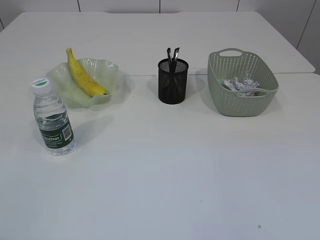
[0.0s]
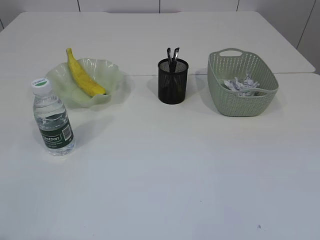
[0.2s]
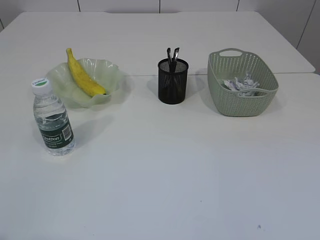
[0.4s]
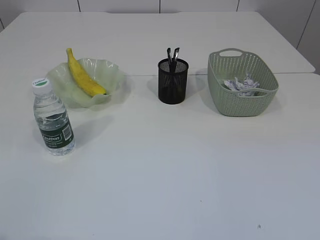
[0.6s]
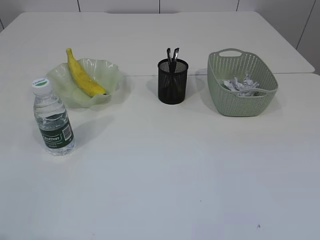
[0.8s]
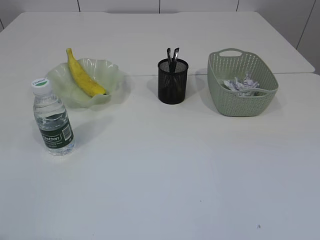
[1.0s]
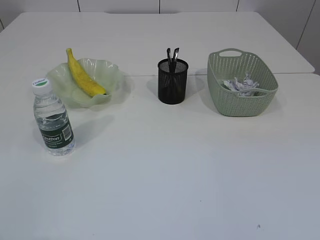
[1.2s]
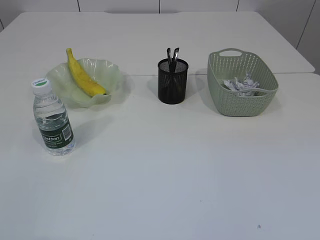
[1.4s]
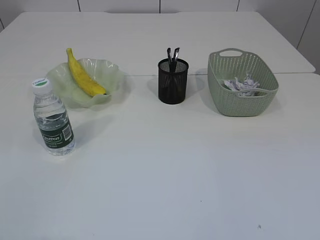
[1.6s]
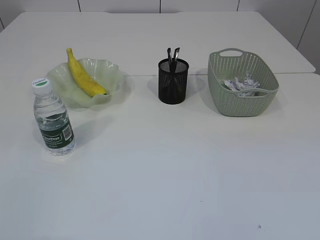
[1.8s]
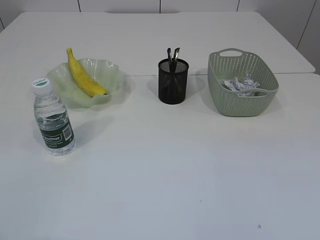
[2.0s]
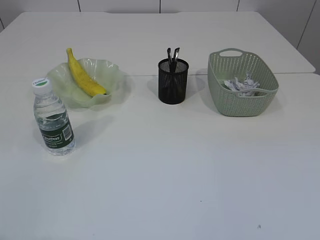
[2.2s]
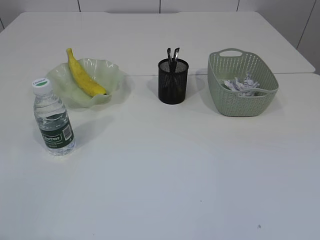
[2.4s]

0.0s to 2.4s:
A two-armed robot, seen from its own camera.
1.2s to 2.4s: Neither gripper changes place.

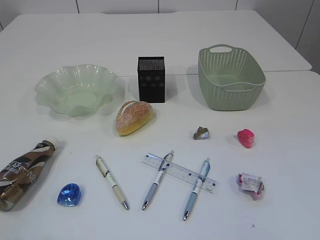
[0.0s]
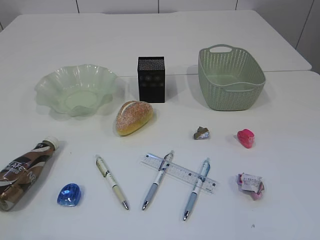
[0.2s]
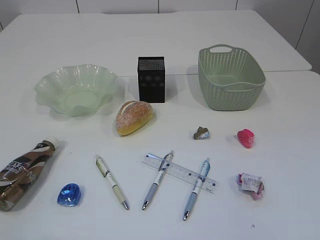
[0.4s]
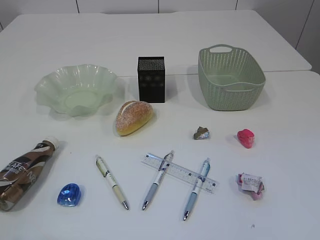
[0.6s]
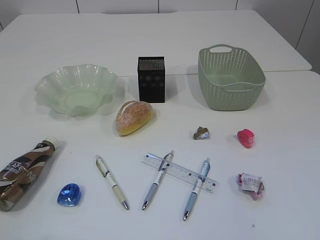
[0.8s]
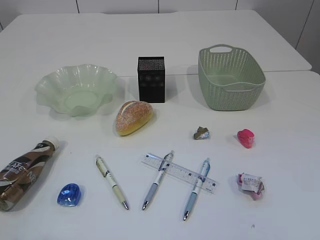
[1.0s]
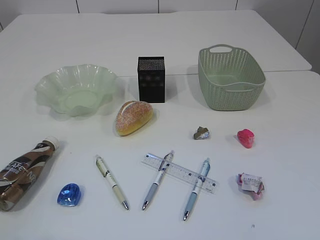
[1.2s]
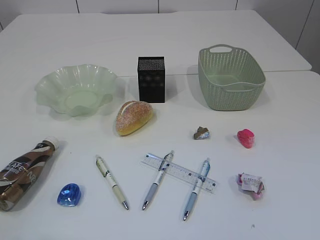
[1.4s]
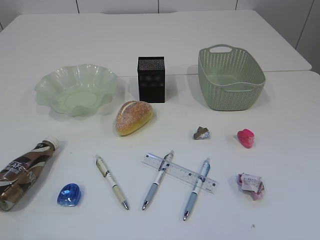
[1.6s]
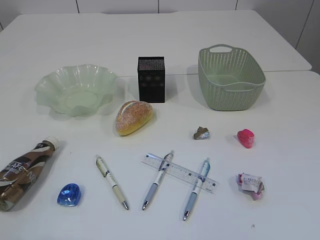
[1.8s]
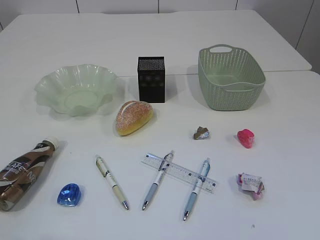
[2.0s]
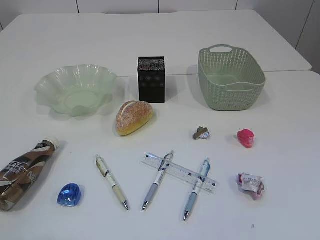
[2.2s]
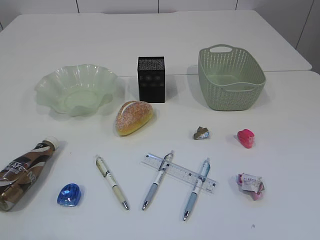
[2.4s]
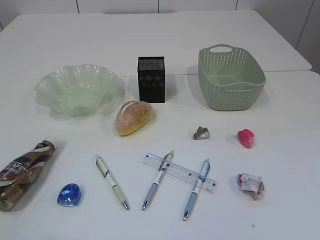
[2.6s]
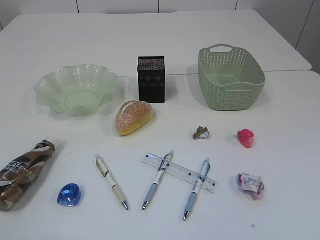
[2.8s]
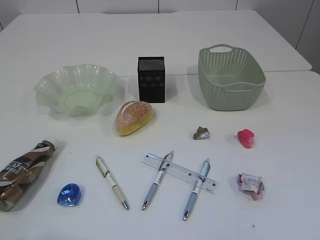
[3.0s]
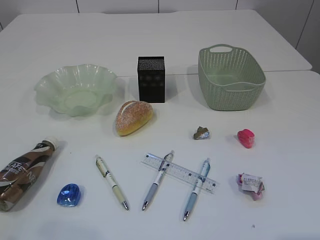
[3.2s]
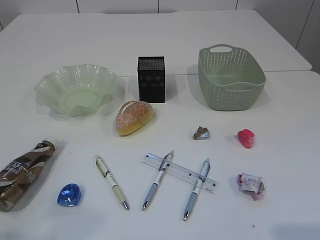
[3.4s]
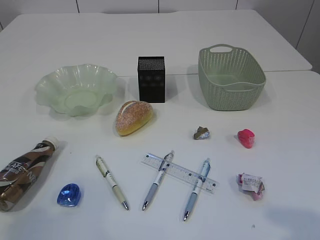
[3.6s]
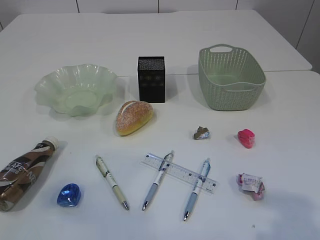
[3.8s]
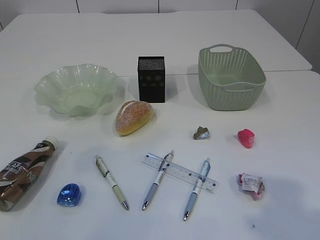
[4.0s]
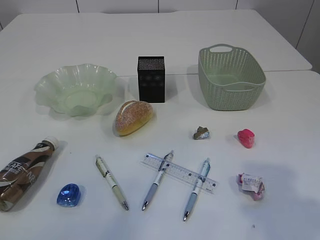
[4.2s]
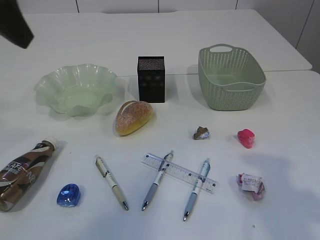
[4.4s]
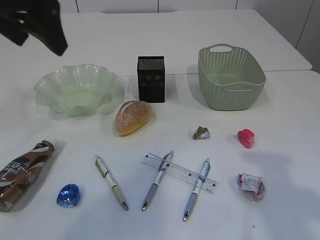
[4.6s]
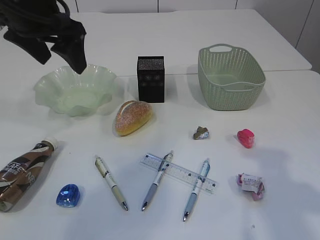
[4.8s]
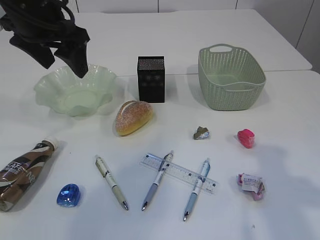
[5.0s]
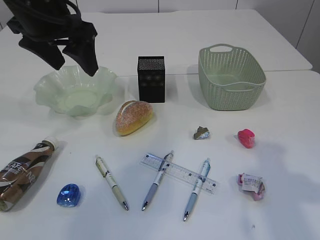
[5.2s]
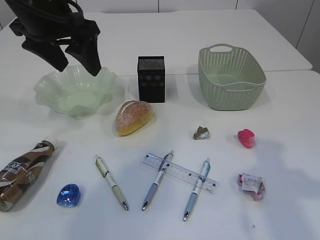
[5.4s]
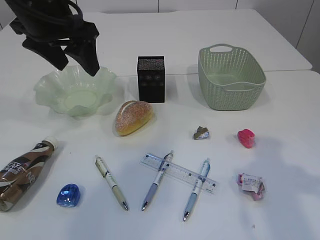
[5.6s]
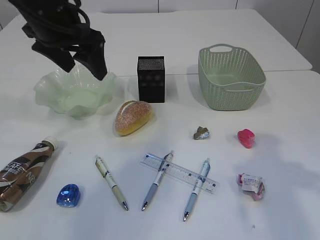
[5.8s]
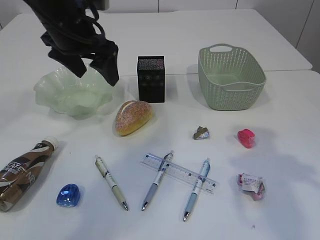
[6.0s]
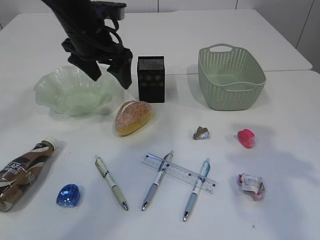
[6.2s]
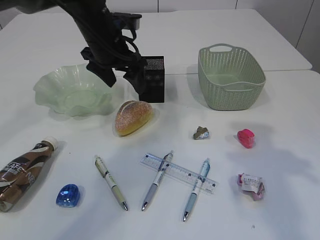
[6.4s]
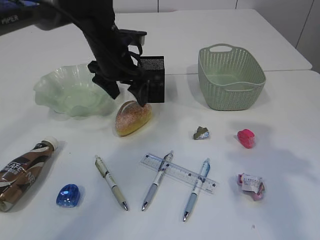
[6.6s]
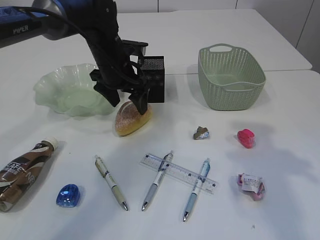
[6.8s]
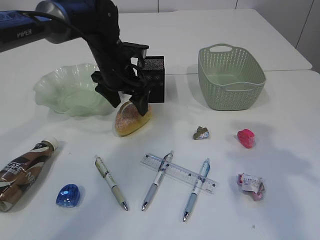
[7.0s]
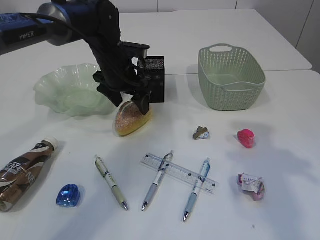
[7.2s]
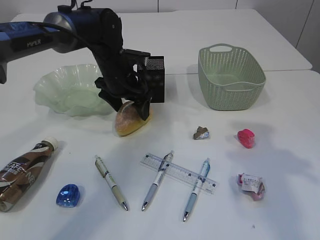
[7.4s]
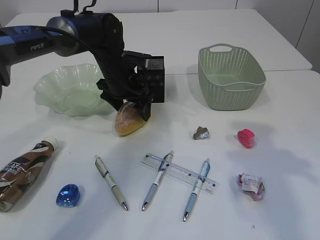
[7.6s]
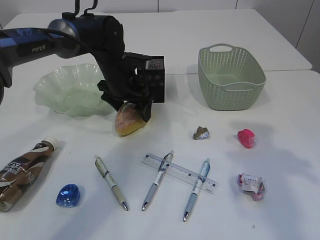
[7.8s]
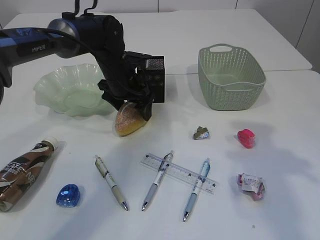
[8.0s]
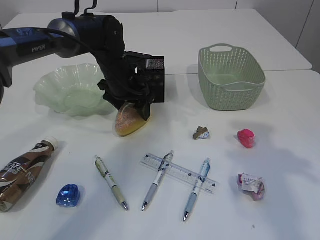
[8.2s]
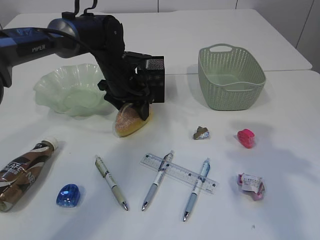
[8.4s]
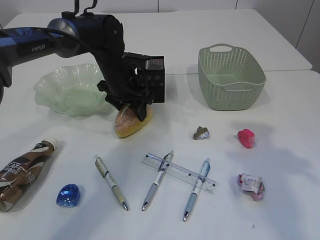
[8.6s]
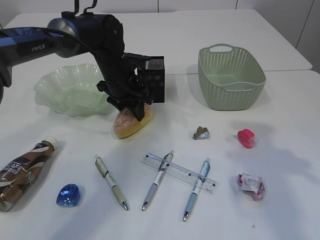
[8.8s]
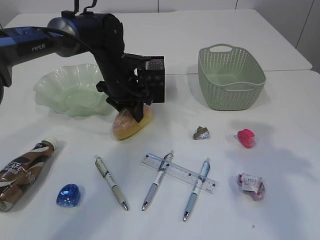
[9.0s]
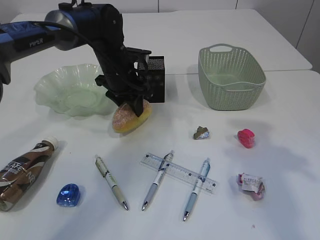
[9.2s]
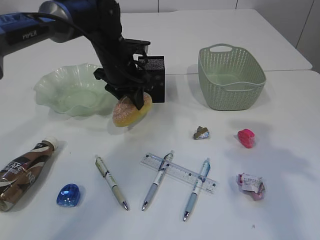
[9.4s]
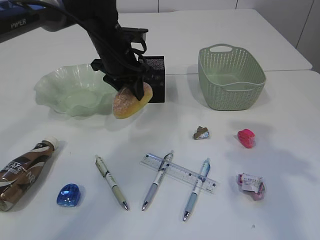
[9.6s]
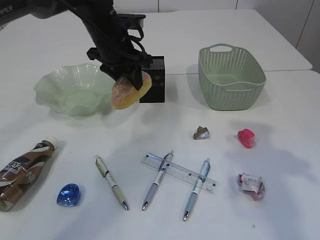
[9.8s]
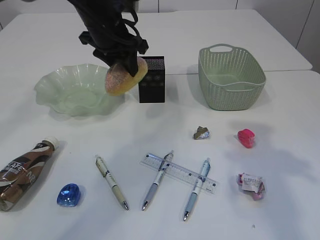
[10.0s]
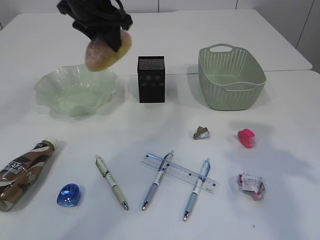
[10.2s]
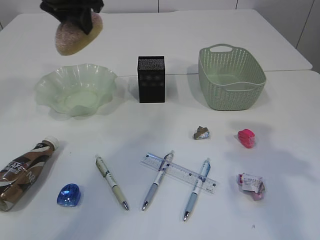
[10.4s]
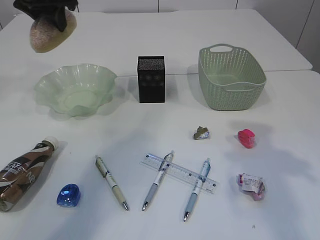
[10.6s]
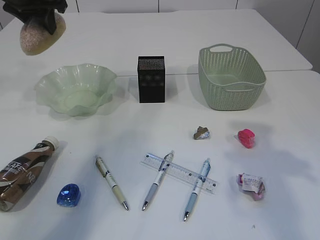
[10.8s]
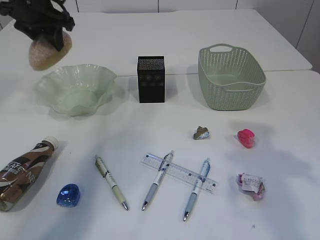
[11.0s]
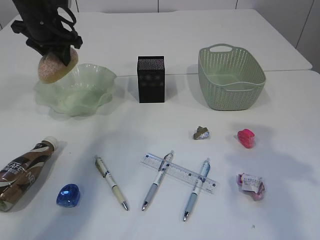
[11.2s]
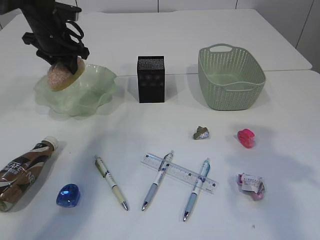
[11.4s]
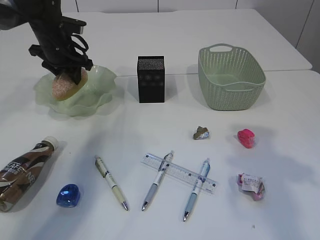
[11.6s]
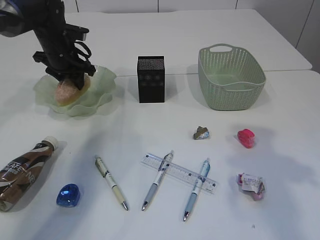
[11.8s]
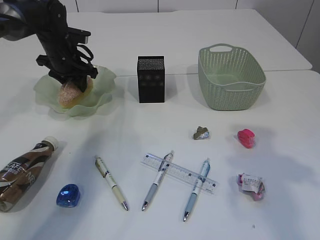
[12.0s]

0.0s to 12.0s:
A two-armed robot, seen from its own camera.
3.0s to 4.4s: The left gripper travels forward and upward by about 30 cm, while the right gripper is displaced forward and upward by approximately 15 cm.
4.4s to 6.0s: The right gripper is displaced forward by some 10 cm. Meanwhile the left gripper goes approximately 20 cm forward, downward and to the right.
6.0s to 7.6s: The left gripper goes some 15 cm downward and forward.
7.6s to 9.0s: The left gripper closes.
9.0s to 10.4s: The left gripper shifts approximately 20 cm upward.
10.4s to 12.0s: The left gripper moves downward and forward, about 20 cm.

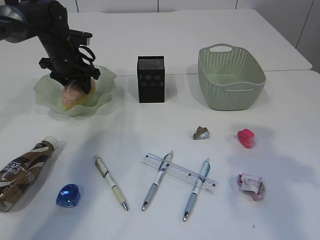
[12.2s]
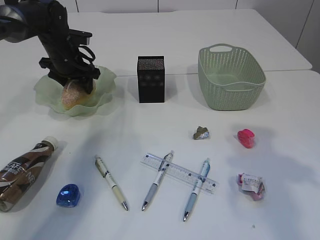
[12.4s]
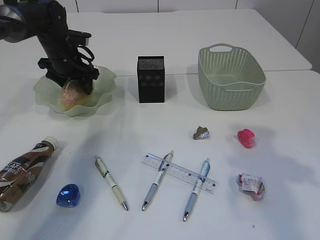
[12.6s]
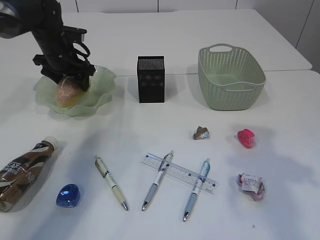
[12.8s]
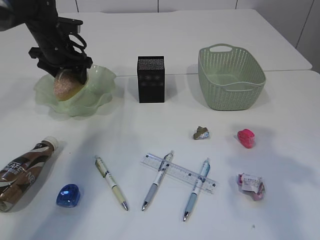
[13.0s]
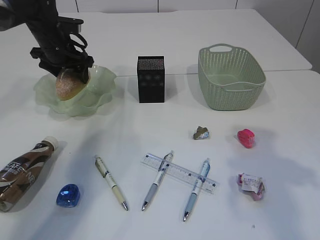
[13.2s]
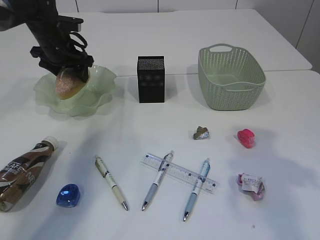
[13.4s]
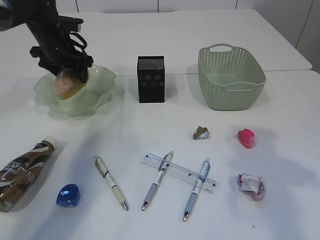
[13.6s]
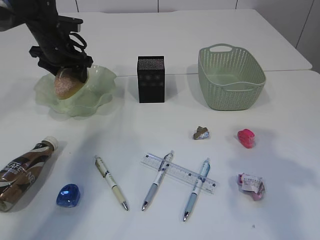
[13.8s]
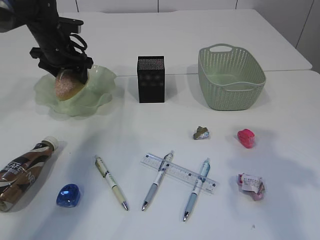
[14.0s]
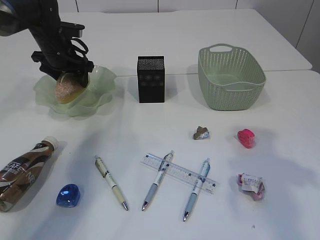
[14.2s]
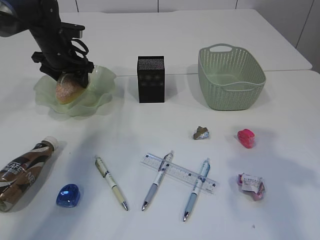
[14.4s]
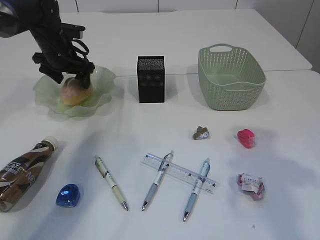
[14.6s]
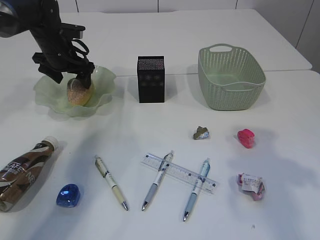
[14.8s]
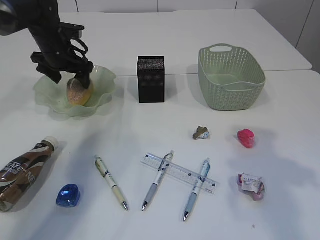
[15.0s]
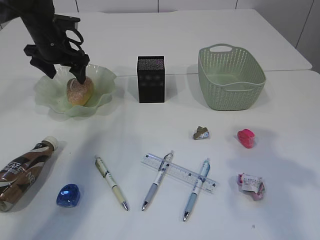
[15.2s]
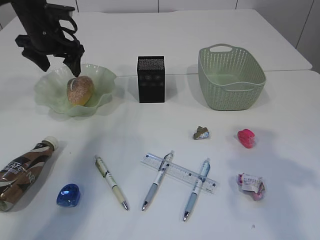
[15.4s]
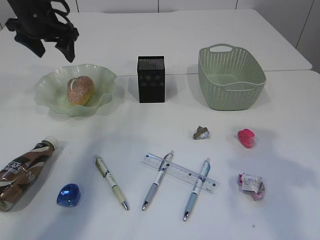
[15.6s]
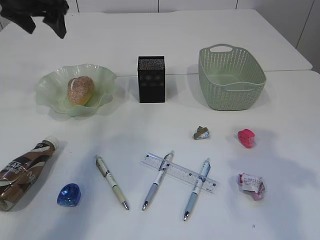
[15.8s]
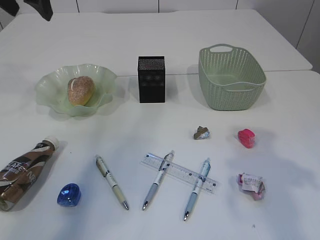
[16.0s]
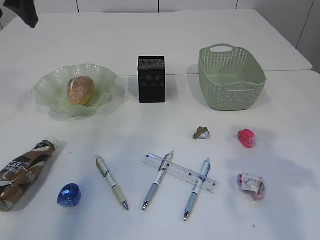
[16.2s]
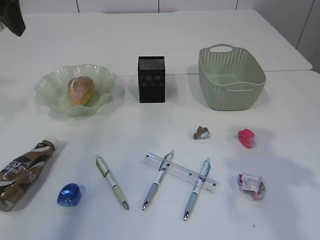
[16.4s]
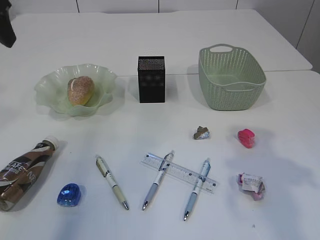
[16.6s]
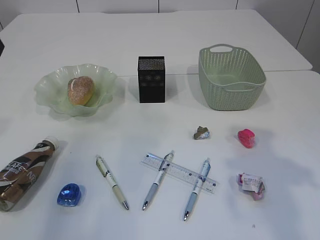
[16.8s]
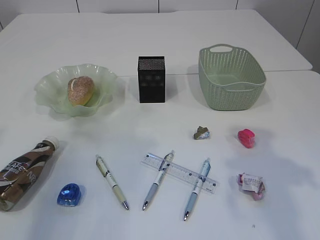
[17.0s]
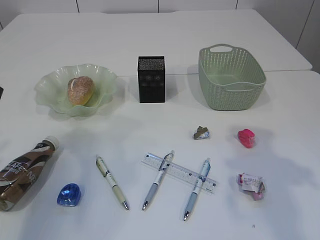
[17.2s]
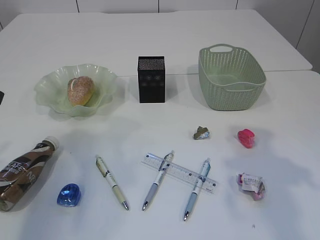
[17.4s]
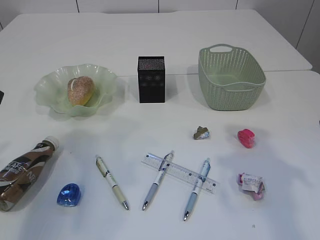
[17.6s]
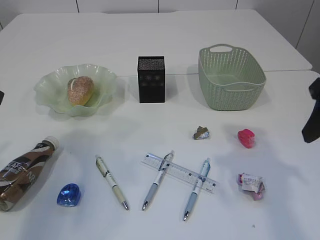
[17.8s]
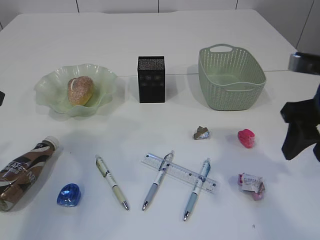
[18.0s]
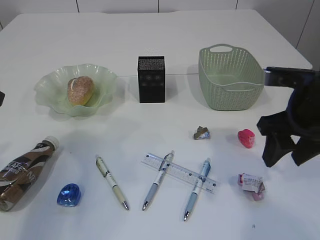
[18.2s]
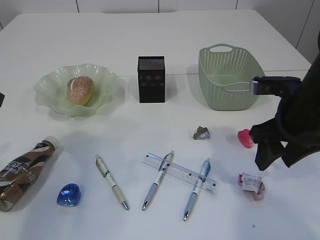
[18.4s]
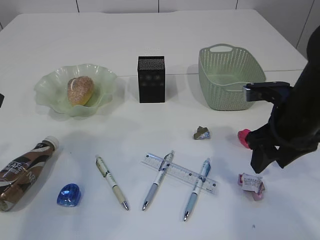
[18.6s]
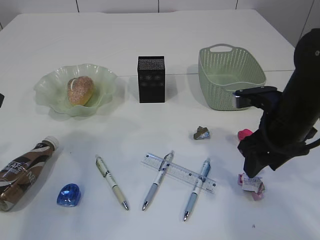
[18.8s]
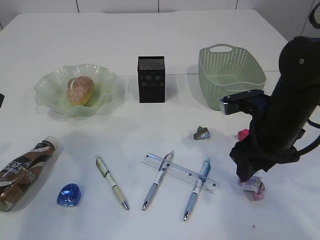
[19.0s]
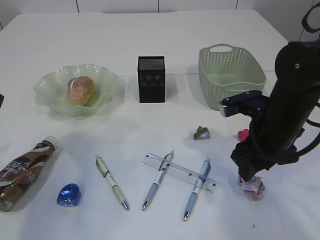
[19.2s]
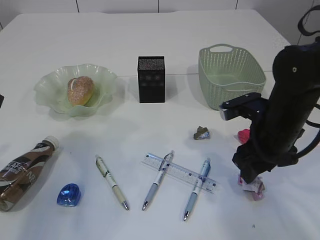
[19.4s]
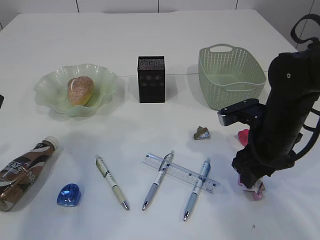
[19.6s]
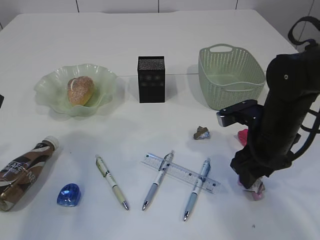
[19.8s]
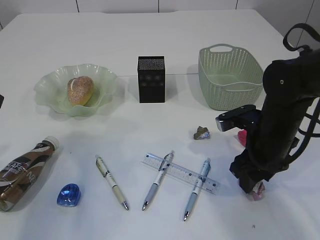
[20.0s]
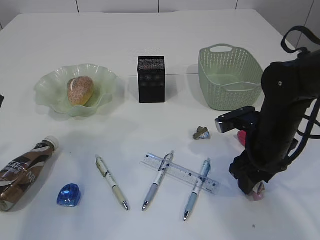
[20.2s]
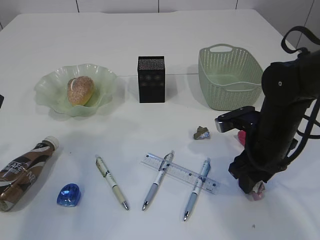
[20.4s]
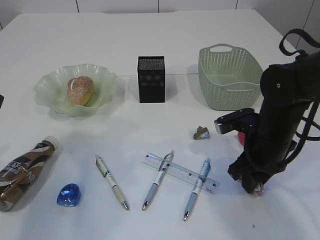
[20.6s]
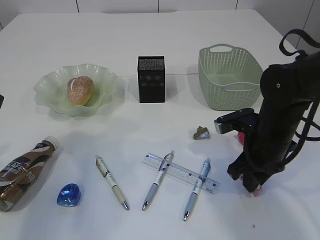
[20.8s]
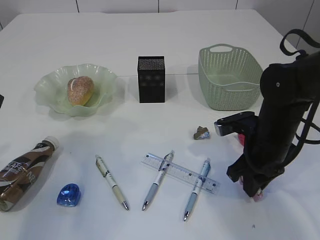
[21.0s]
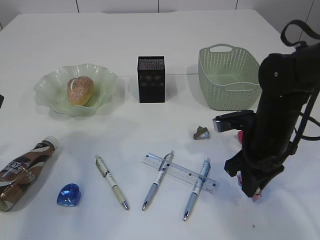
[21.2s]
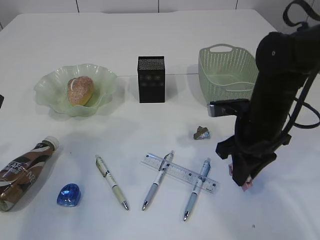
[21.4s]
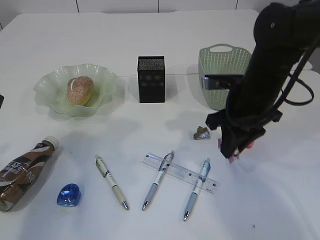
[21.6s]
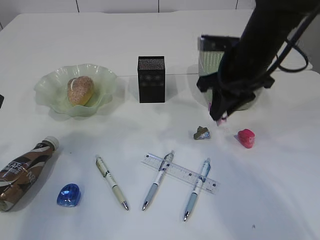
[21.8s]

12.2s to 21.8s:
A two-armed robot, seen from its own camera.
Step, 12.2s to 15.6s: place the bread in the plate.
Step, 15.8s to 21.4s: Pick up the plastic.
12.2s to 13.8s: The left gripper opens up.
13.8s to 15.4s: The grippers move only a little.
15.4s to 17.0s: The left gripper goes roughly 25 cm backward and upward, and closes up.
17.0s to 18.6s: The right gripper travels downward, forward and to the left by approximately 15 cm.
18.6s to 20.2s: The right gripper is displaced downward by roughly 5 cm.
20.2s to 21.8s: The right gripper heads upward and forward, covering approximately 10 cm, and closes up.
